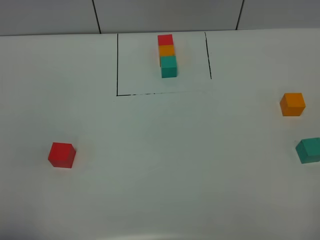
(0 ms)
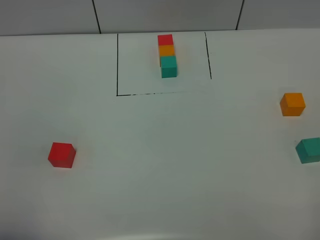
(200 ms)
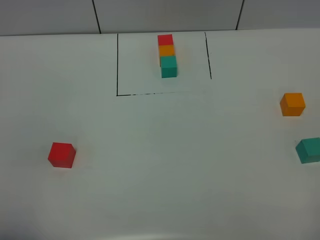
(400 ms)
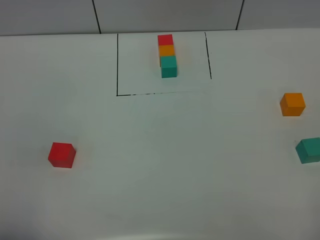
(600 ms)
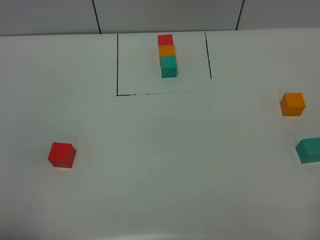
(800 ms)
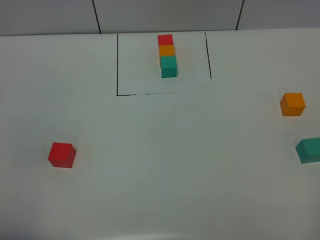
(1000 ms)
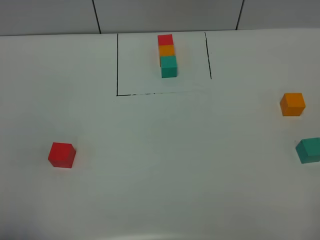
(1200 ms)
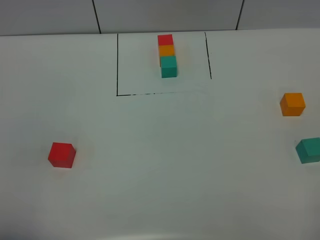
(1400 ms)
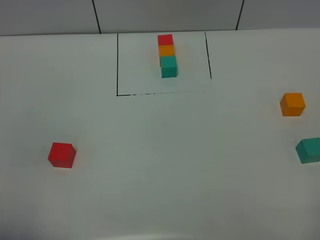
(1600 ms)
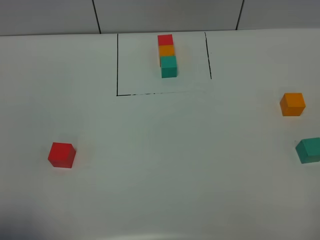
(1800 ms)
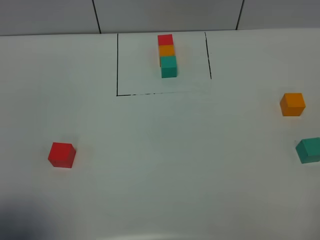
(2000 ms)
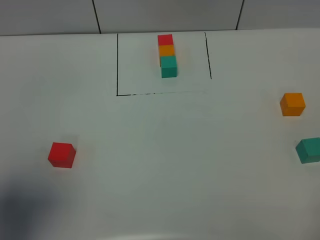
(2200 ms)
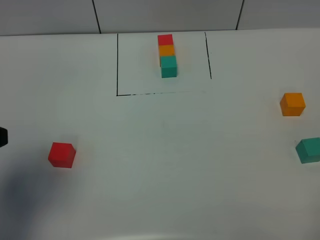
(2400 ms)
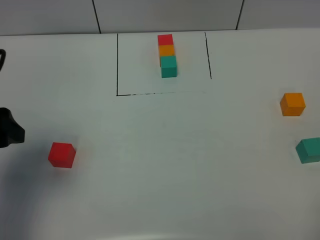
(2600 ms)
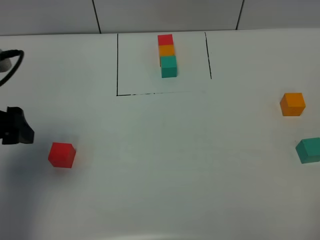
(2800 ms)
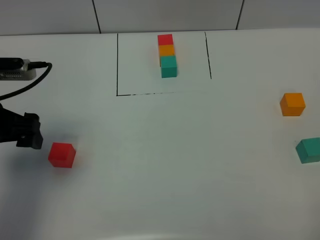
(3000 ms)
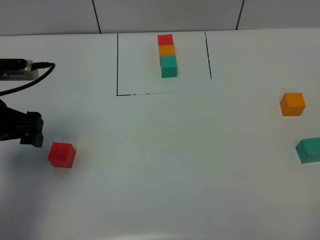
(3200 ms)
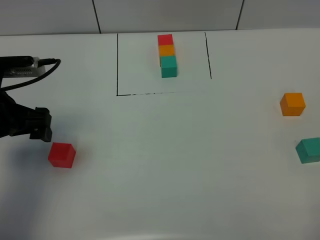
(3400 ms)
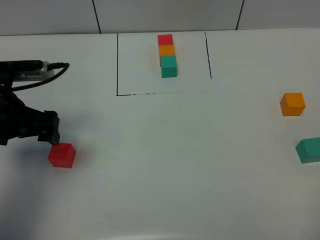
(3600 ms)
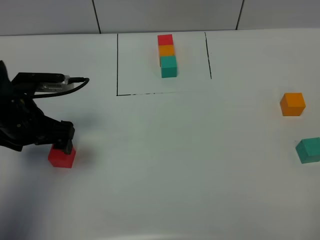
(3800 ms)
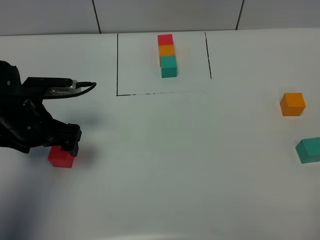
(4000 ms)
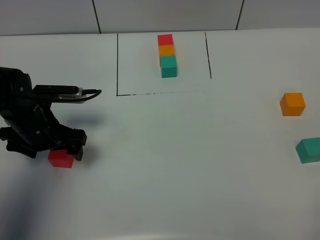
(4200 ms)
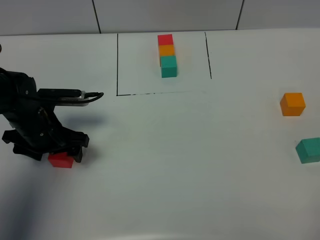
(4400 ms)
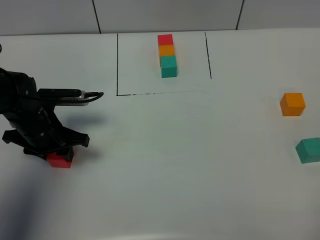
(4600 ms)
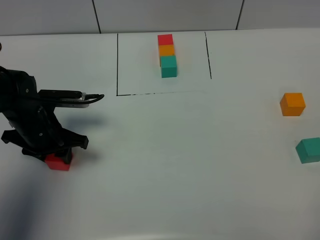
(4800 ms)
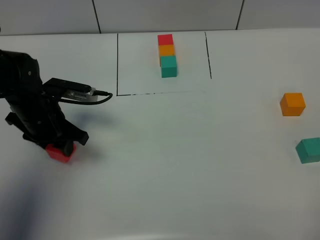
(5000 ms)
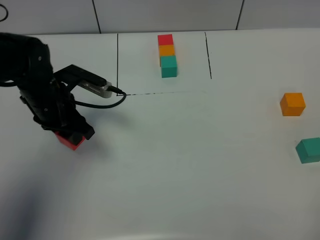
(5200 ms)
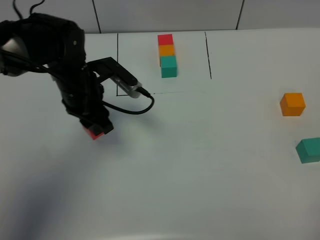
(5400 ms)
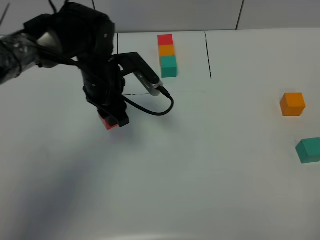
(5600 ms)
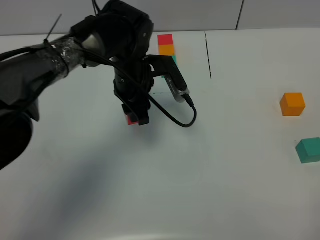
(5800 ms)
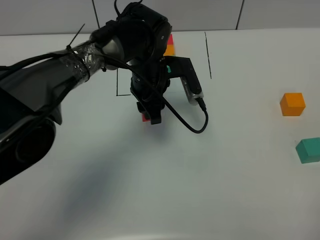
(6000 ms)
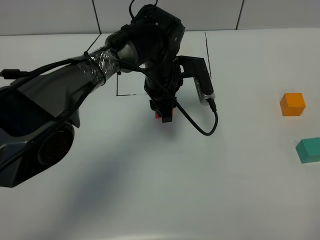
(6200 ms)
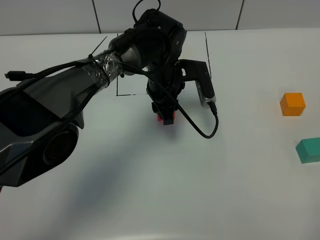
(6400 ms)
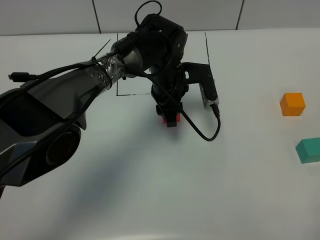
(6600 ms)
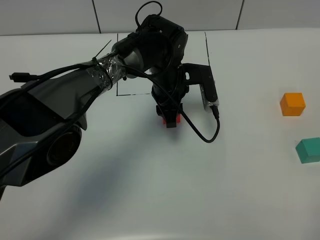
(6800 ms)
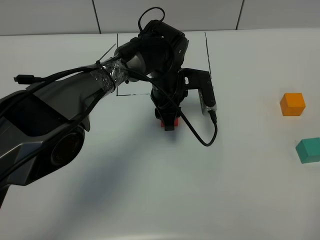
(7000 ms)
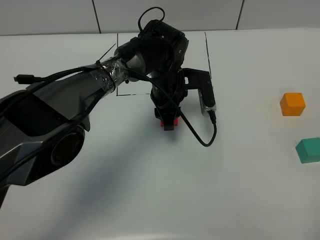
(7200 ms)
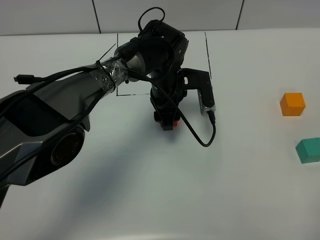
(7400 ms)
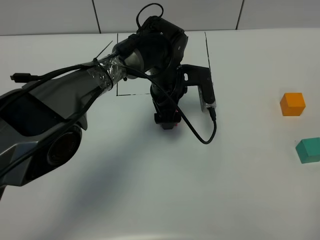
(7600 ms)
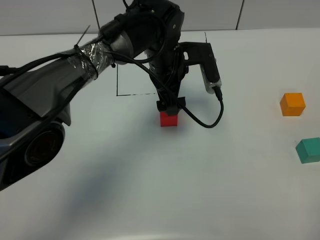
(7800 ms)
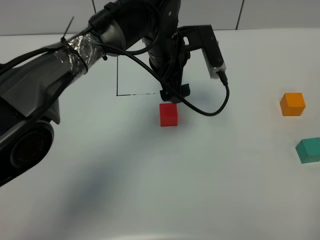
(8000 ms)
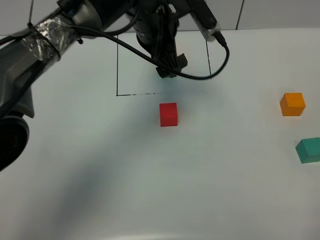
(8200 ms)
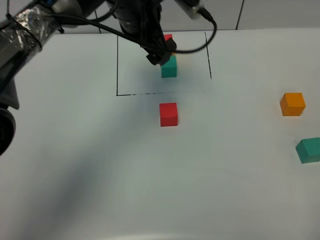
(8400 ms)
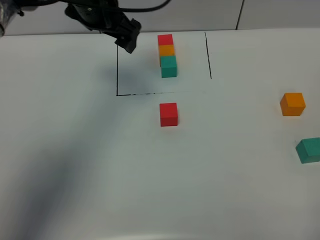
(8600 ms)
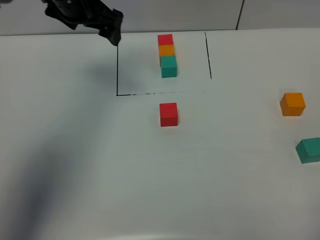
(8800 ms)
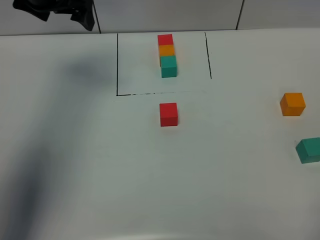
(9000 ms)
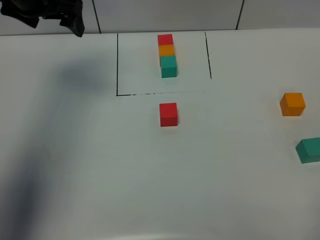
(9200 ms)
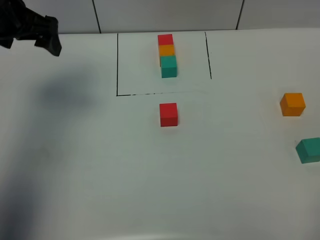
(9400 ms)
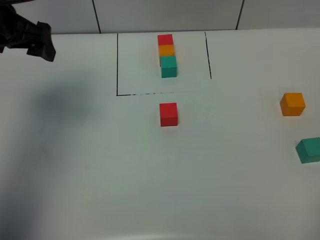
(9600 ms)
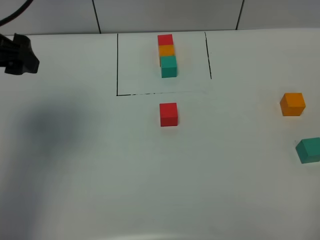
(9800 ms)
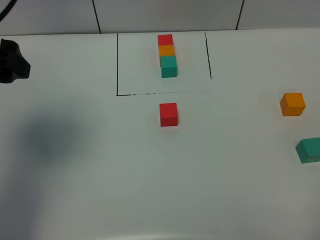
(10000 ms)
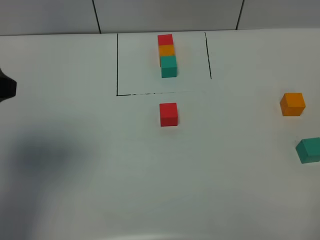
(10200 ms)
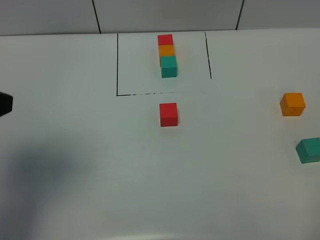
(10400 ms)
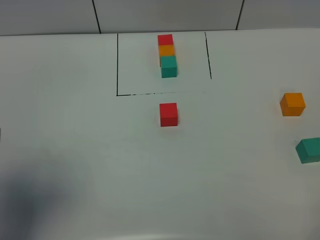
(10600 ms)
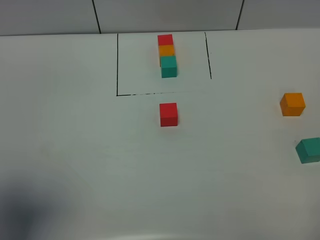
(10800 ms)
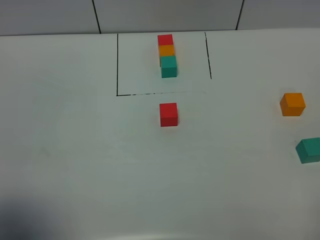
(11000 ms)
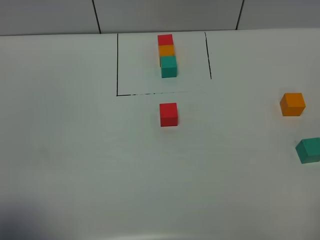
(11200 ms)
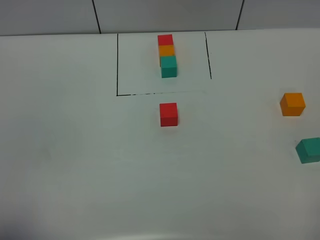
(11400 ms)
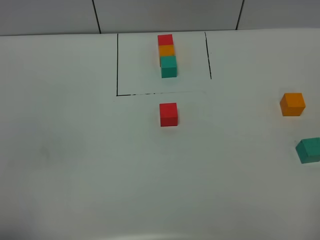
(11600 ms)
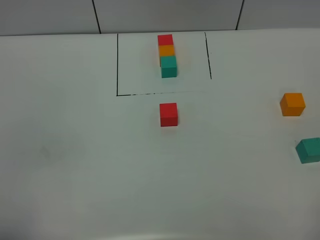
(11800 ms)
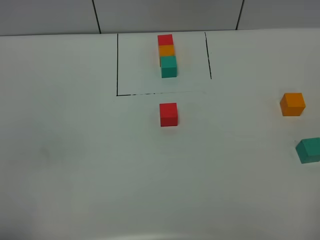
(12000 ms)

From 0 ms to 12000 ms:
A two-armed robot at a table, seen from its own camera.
Task of the whole recording: According to the building block template in front, assemble the scattered blocks together.
Step, from 0 ms to 7200 ms: Put the red build block in the center of the table.
From 0 ms to 1600 ms: Both grippers stay put.
From 1600 ms to 3000 ms: The left gripper goes approximately 25 cm forward.
From 3000 ms to 4400 ms: The left gripper is displaced downward and forward by about 15 cm.
From 4400 ms to 6000 ms: The left gripper travels to the right and forward by roughly 25 cm, and closes.
From 6000 ms to 7600 ms: The left gripper opens its fingers.
From 7600 ms to 9000 ms: The left gripper goes approximately 30 cm to the left and upward.
From 9000 ms to 10400 ms: The left gripper moves backward, about 30 cm.
From 10400 ms to 12000 ms: The left gripper moves backward and downward, approximately 20 cm.

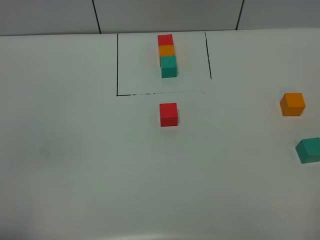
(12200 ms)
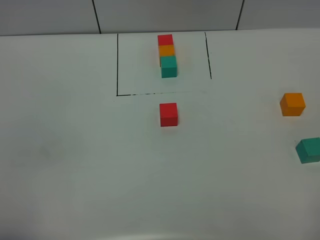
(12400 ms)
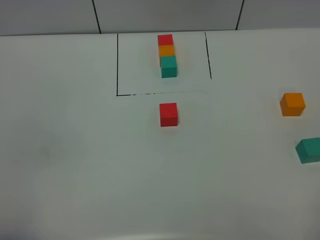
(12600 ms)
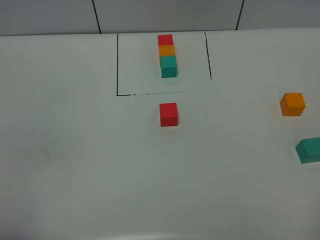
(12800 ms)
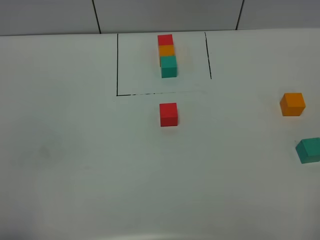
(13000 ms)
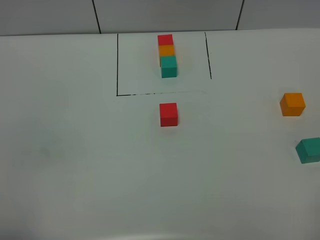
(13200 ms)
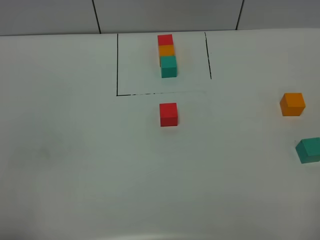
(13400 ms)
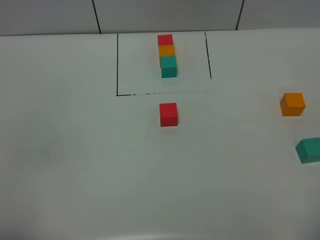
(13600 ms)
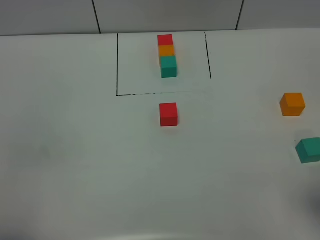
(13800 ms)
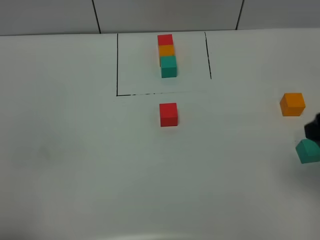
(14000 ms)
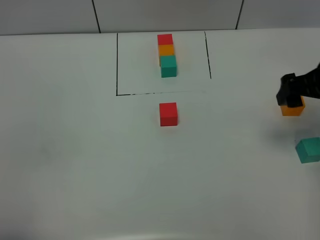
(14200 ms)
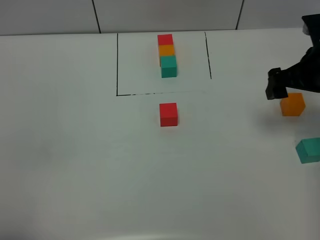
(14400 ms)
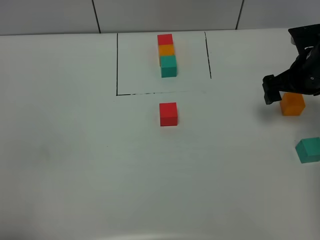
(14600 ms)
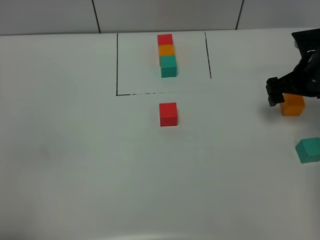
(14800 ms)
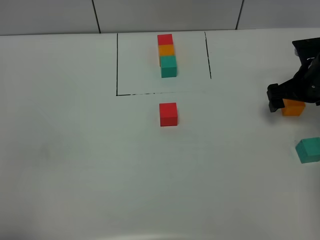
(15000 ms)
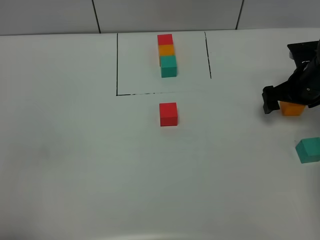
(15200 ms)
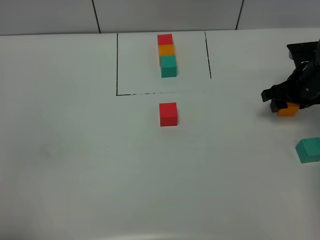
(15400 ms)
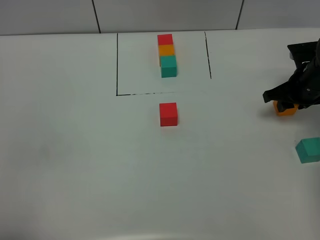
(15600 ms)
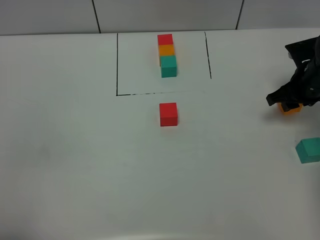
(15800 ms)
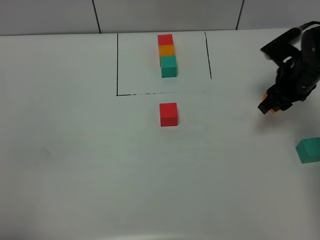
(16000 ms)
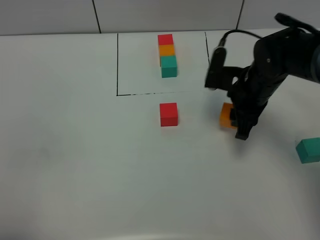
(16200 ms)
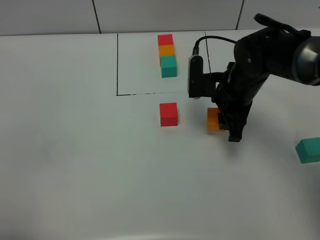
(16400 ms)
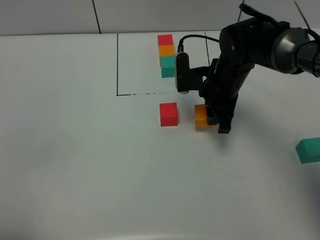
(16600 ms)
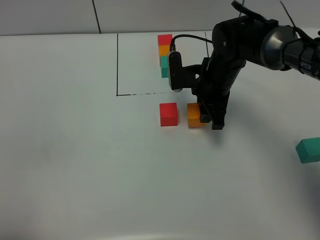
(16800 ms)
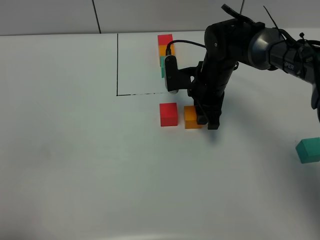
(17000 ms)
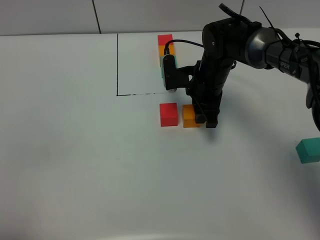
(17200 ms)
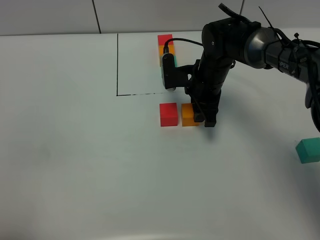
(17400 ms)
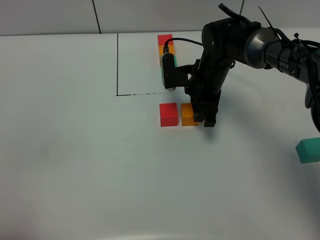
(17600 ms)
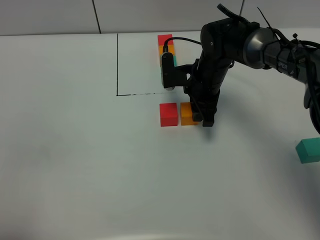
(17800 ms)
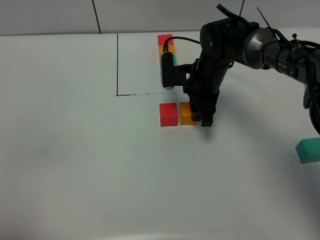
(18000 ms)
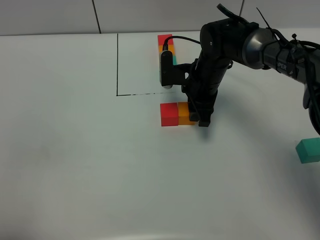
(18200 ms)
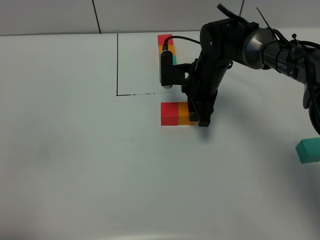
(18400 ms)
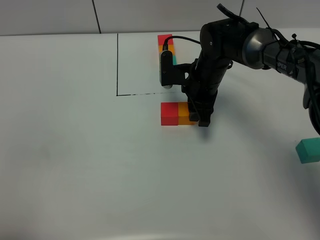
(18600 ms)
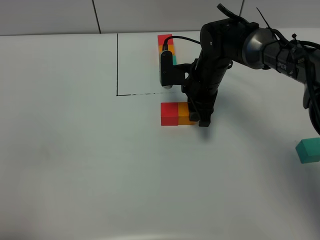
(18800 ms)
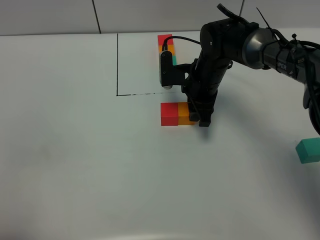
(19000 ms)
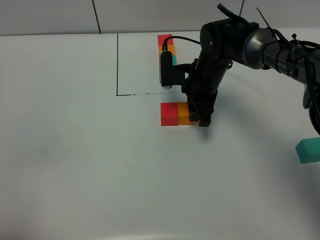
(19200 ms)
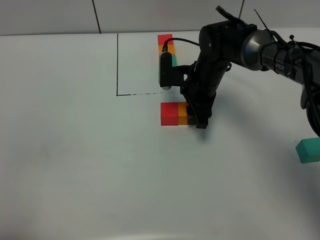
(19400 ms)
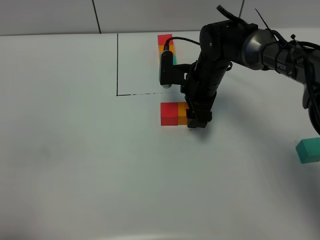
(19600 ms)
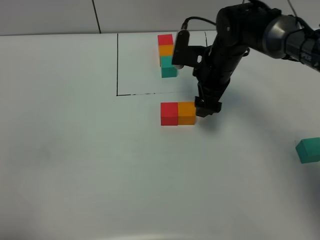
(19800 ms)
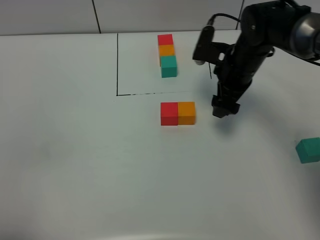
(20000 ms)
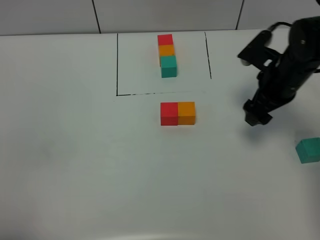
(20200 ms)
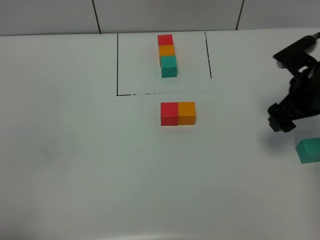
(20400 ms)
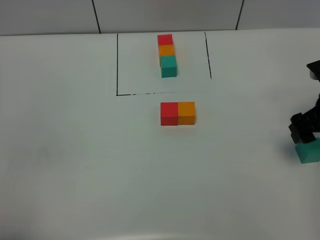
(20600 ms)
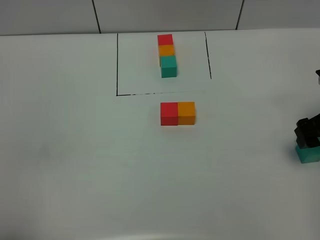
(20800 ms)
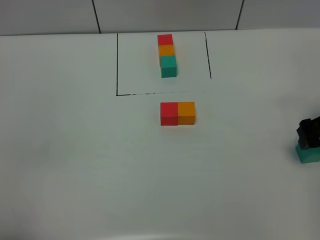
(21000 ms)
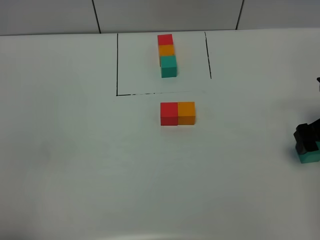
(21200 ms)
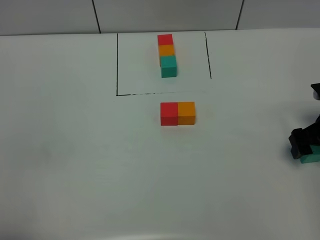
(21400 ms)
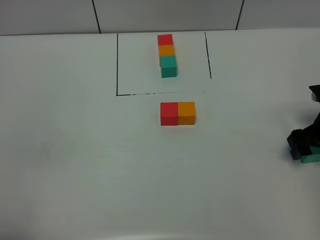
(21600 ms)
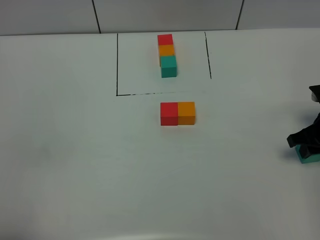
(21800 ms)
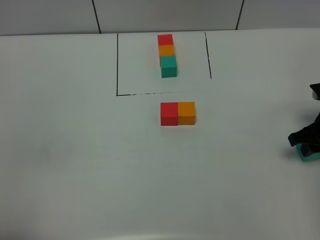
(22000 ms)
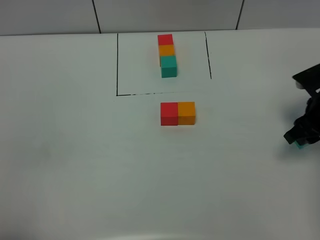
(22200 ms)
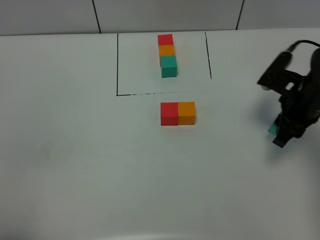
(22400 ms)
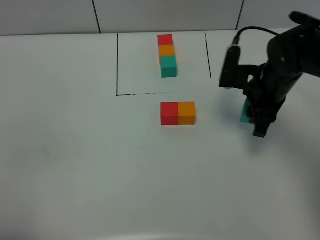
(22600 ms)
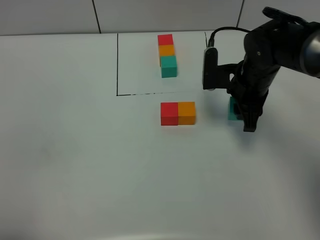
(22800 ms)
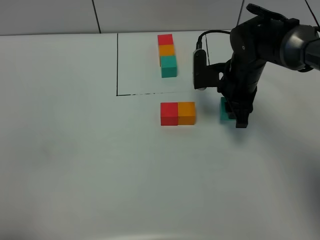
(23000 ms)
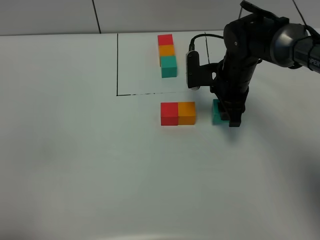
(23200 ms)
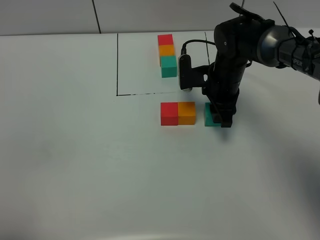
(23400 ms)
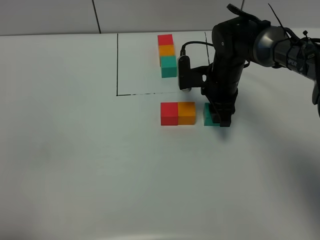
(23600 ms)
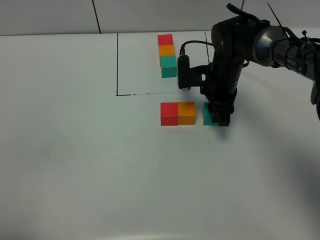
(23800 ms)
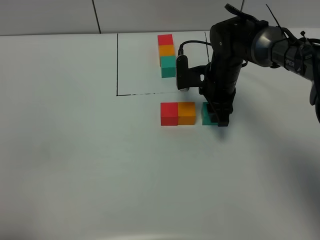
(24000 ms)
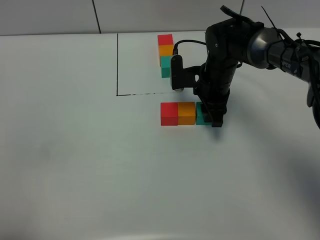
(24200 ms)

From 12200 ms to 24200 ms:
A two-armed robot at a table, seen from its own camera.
Task of the whole recording: According to the building block template in front, assemble the scattered blocks together.
Step, from 12200 ms to 19400 ms: Put the orange build block on the right of the red build block.
From 13800 ms to 15200 ms: The right gripper is displaced forward and downward by some 30 cm.
From 15200 ms to 16600 ms: The right gripper shifts approximately 20 cm to the left, and closes up.
From 16600 ms to 18200 ms: The right gripper moves approximately 5 cm.
From 18200 ms to 19800 ms: The right gripper opens its fingers.
From 19800 ms to 21200 ms: The right gripper is displaced to the right and backward by some 25 cm.
From 21200 ms to 22600 ms: The right gripper heads to the left and forward, covering about 15 cm, and closes.
From 22600 ms to 24200 ms: The right gripper heads to the left, forward and downward, covering about 10 cm.
